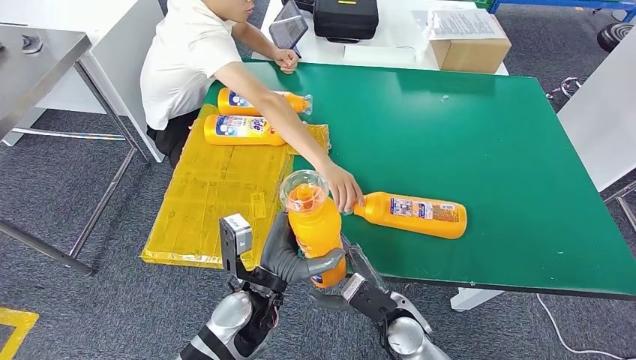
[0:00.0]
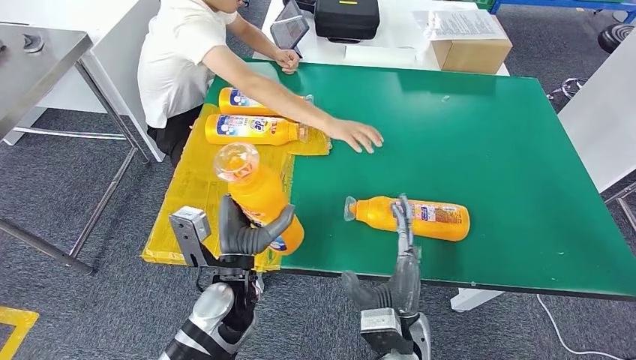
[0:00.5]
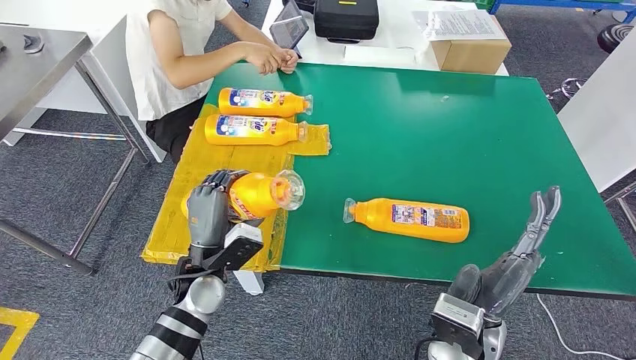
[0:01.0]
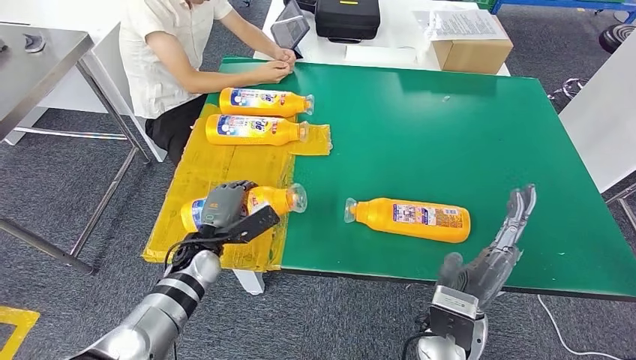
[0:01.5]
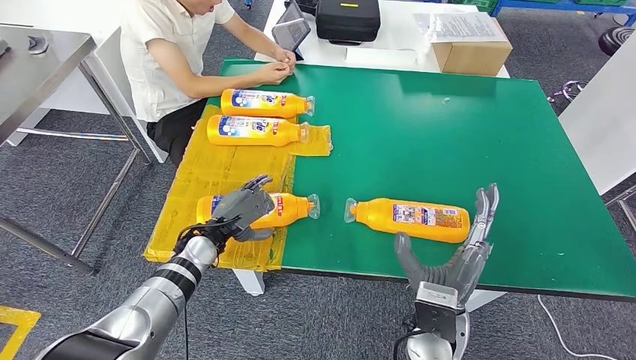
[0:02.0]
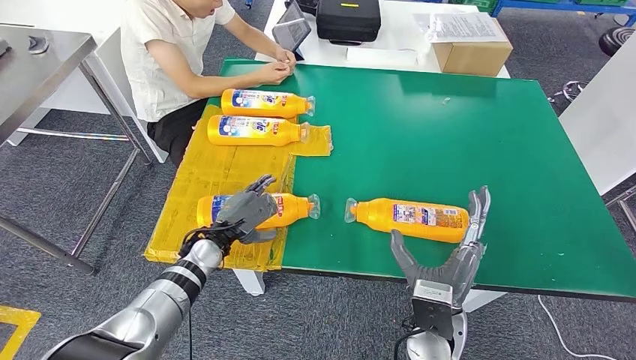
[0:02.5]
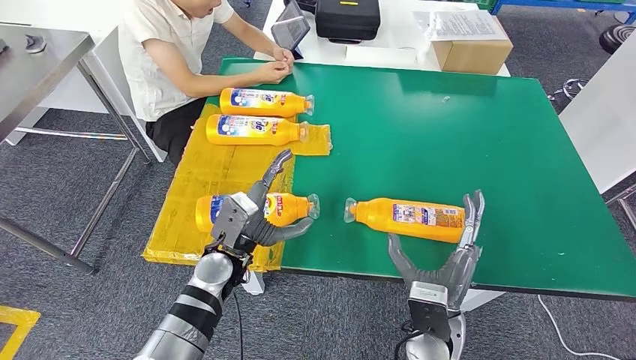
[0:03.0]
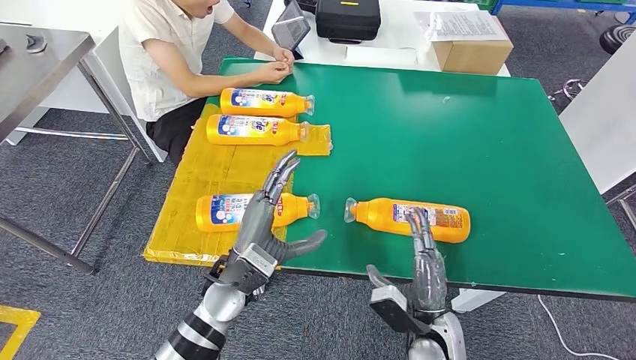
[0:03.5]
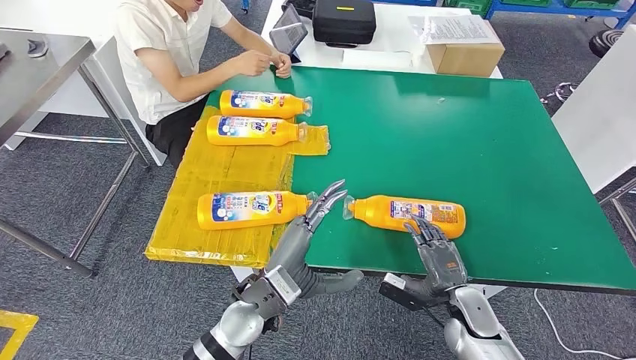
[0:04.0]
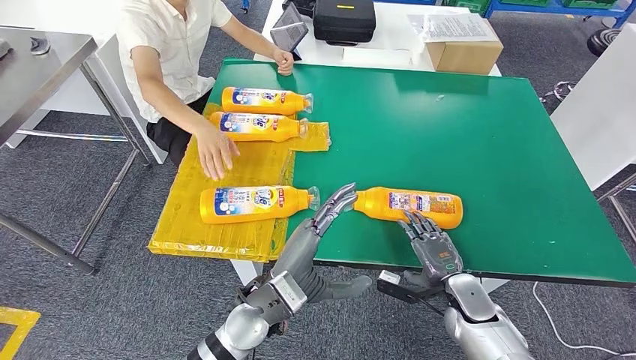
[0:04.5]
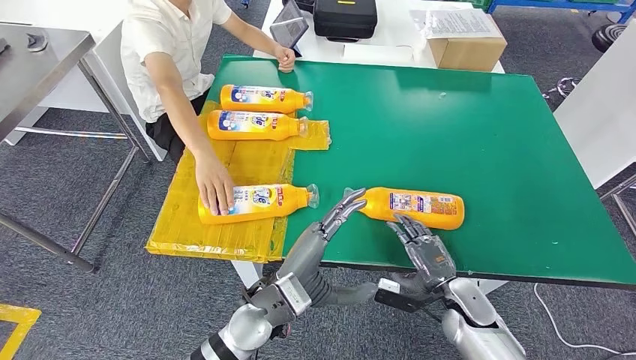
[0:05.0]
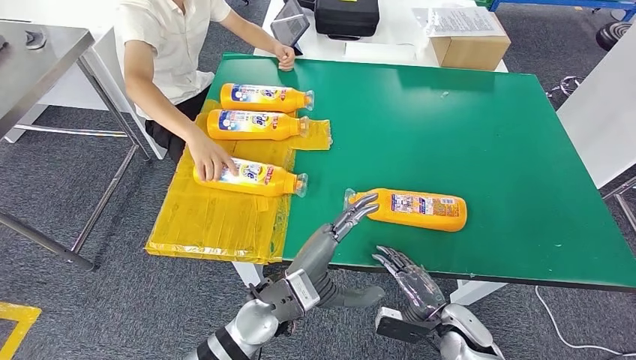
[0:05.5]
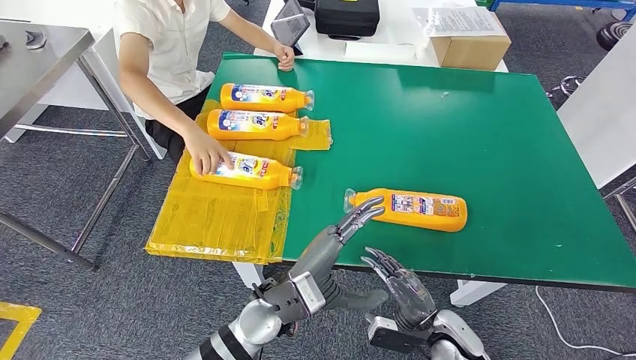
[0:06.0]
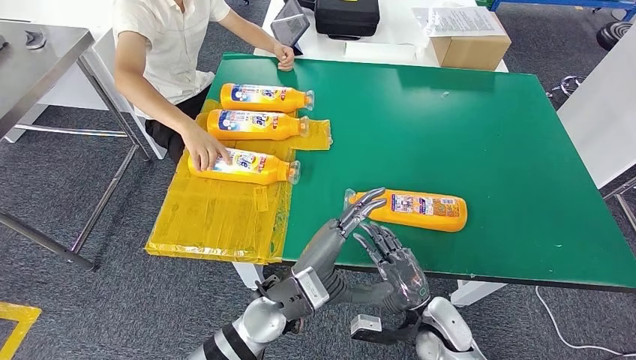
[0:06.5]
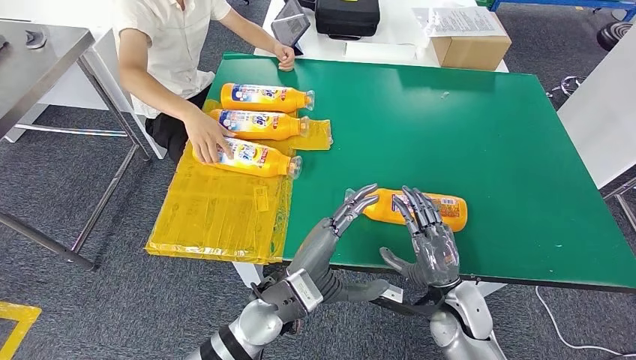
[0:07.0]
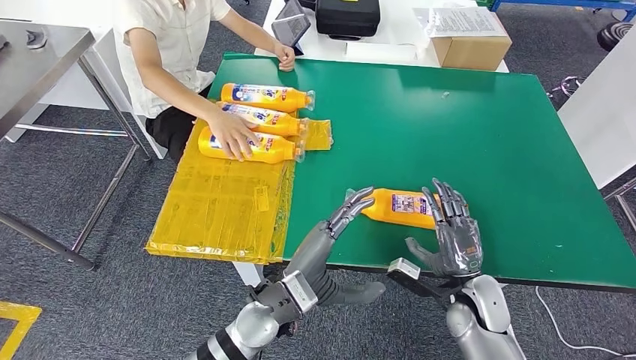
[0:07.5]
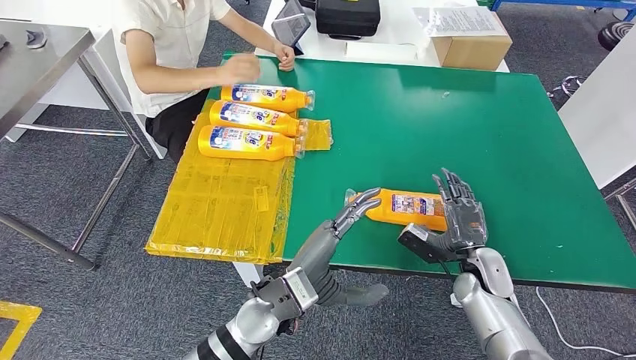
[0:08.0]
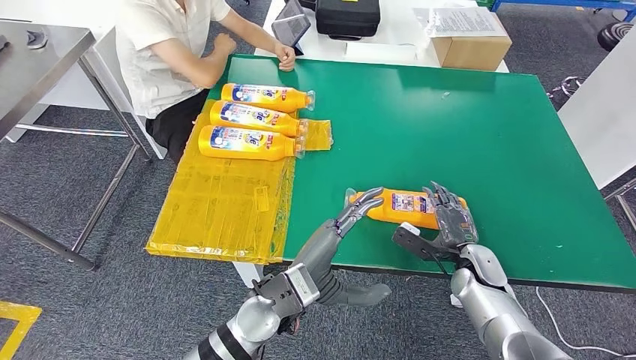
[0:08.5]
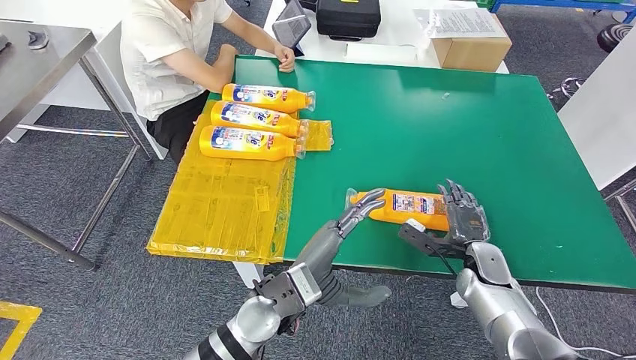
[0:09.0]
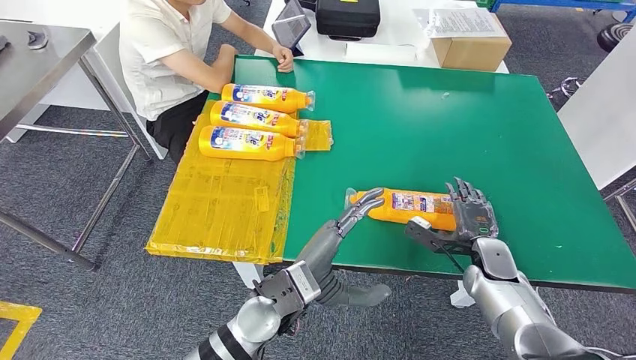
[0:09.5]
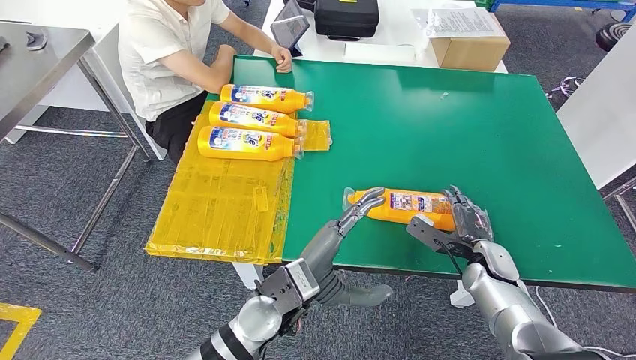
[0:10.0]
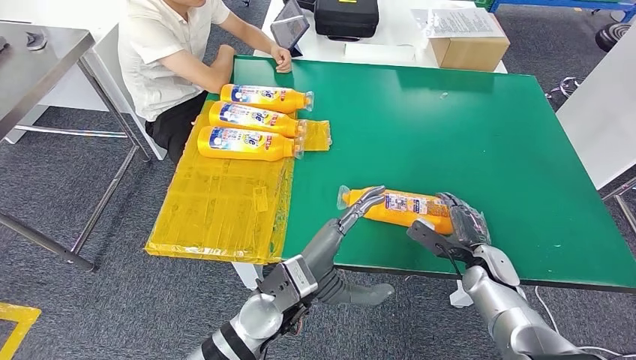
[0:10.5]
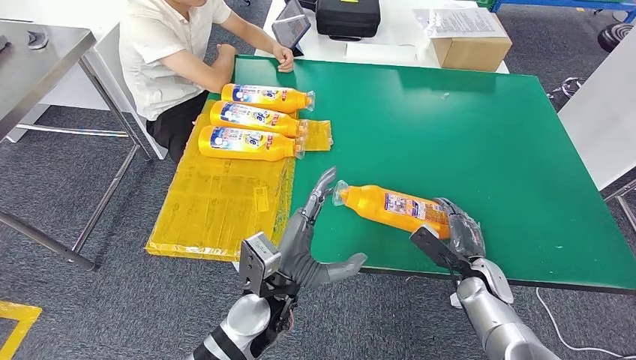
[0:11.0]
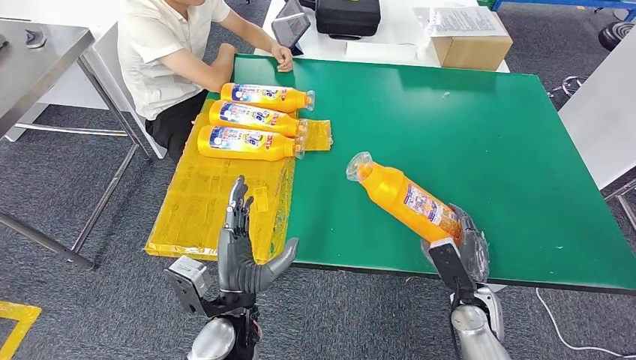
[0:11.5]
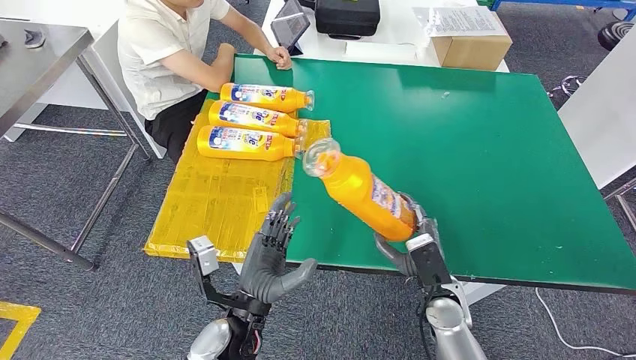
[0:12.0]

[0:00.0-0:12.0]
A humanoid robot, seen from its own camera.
Step, 0:00.0 to 0:01.5: Flip the fast-moving consumer goods bottle to the front side.
0:06.0 to 0:08.0: The right hand moves forward, to the right and upward, roughly 15 cm.
0:10.0 to 0:12.0: The right hand is displaced to the left and backward by about 15 cm. Meanwhile the left hand is displaced to the left by approximately 5 cm.

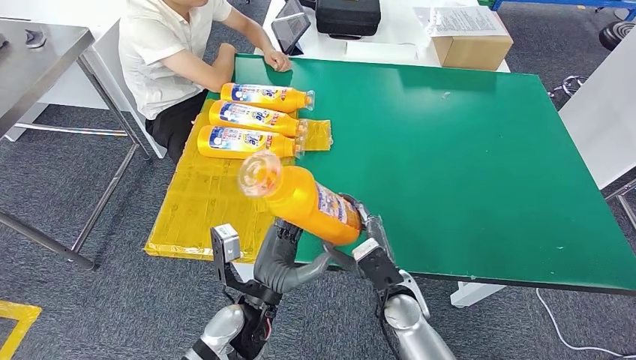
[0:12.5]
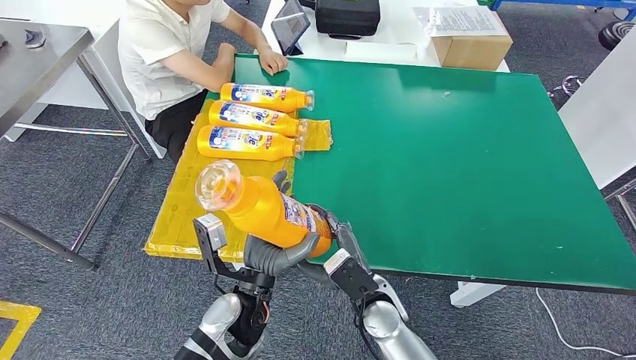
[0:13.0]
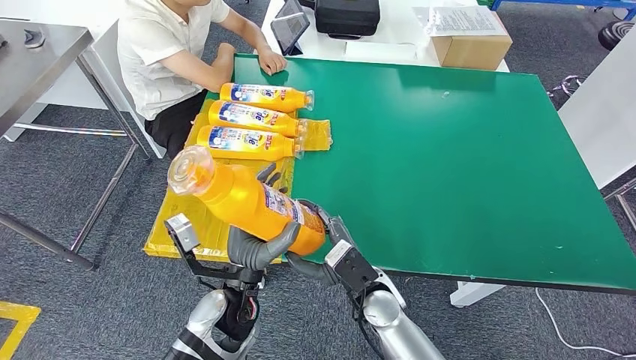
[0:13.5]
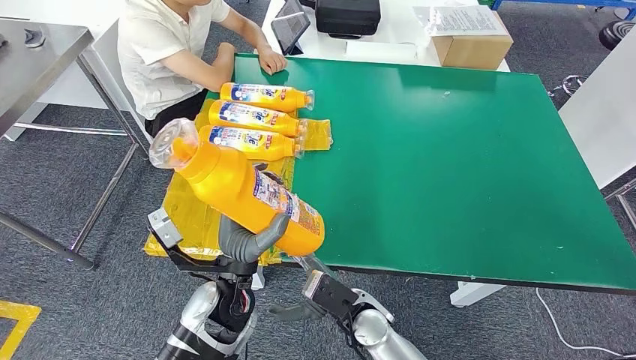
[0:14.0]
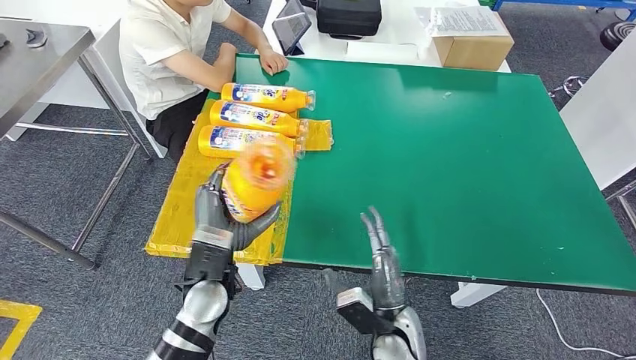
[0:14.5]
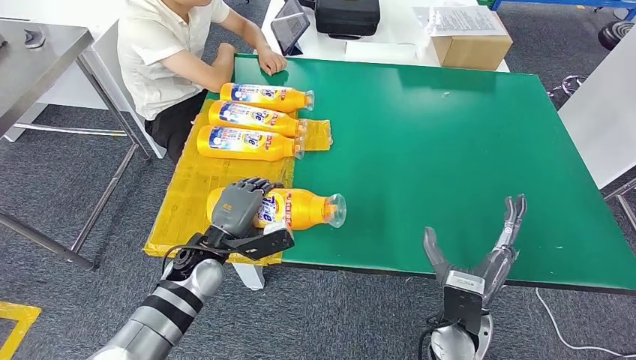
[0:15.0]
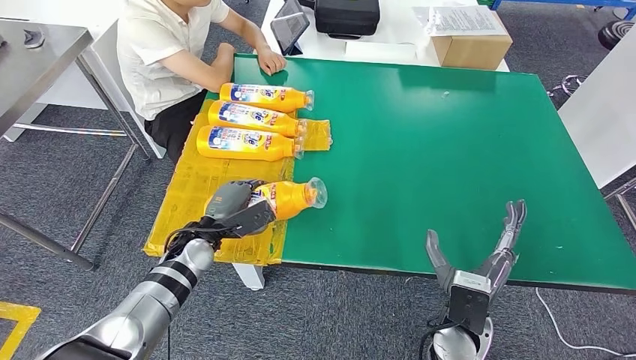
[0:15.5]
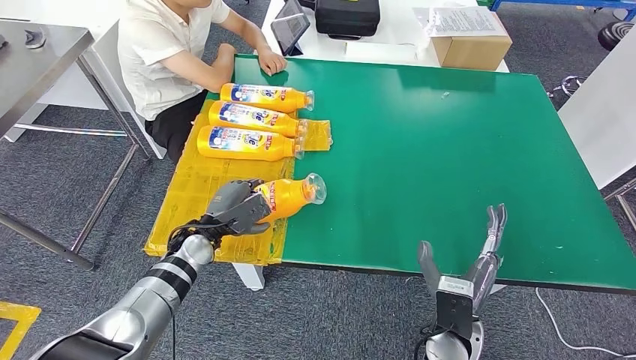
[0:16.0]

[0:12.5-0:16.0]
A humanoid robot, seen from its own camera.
Step, 0:13.5 to 0:16.0: Flip the fast-moving consumer goods bottle to the front side.
0:12.5 to 0:14.5: The left hand heads to the left, covering about 5 cm, while the right hand heads backward, covering some 5 cm.
0:14.5 to 0:16.0: The right hand shifts some 5 cm to the right; the left hand travels forward, to the left and downward by about 15 cm.

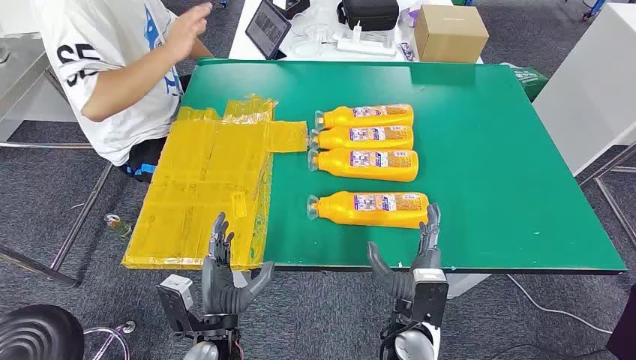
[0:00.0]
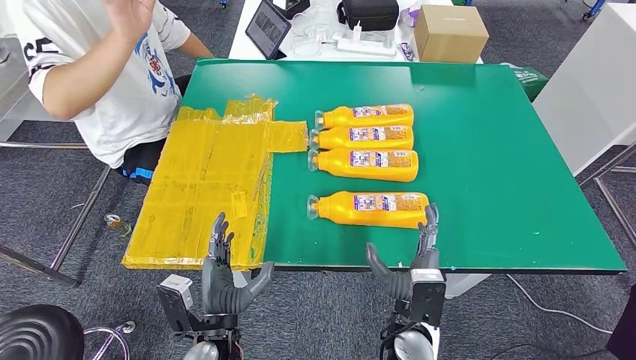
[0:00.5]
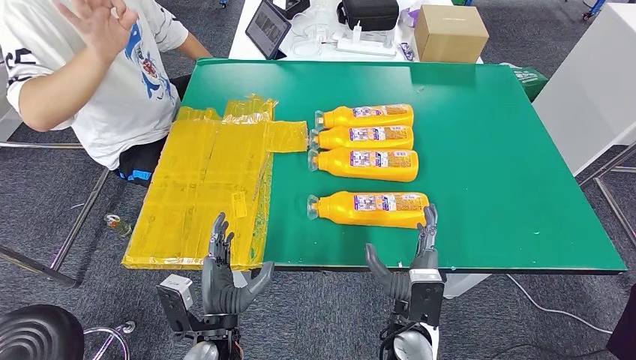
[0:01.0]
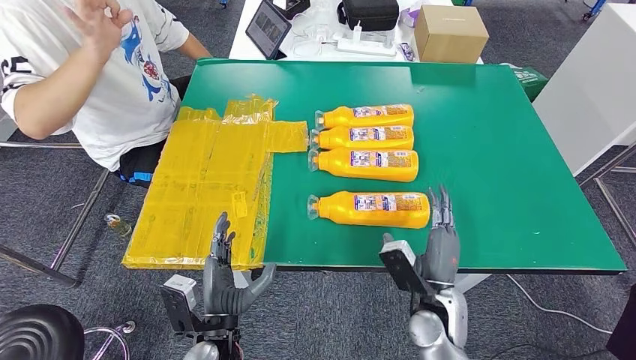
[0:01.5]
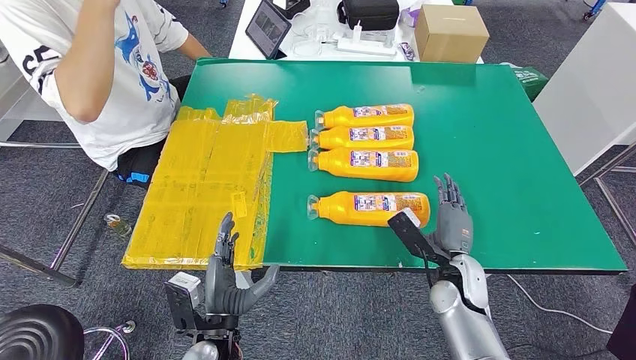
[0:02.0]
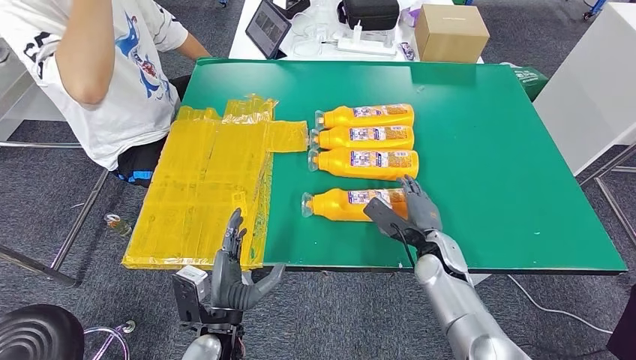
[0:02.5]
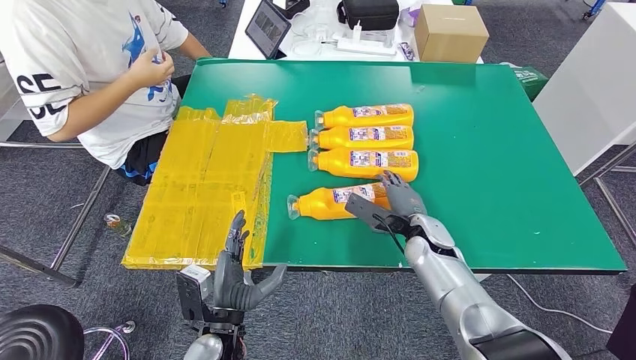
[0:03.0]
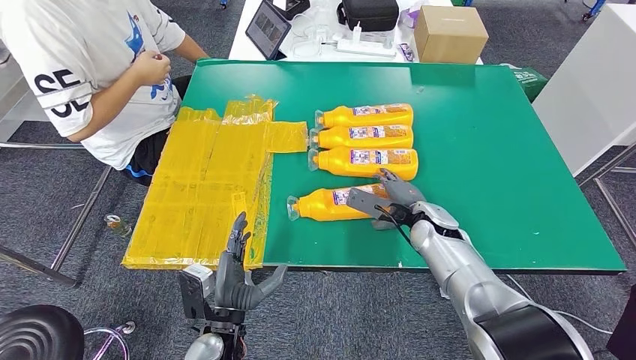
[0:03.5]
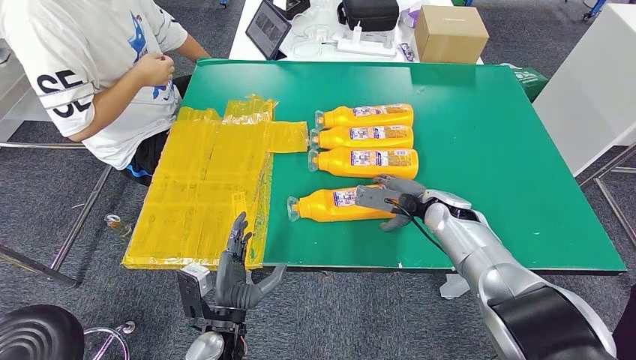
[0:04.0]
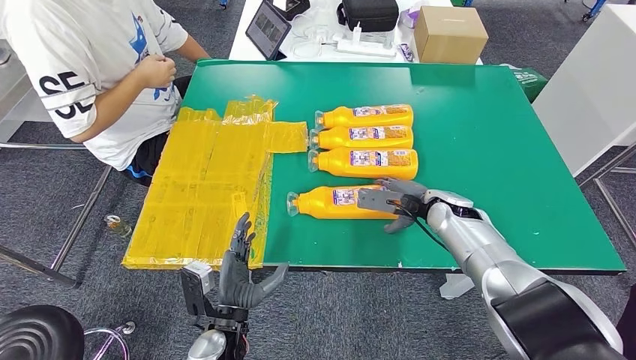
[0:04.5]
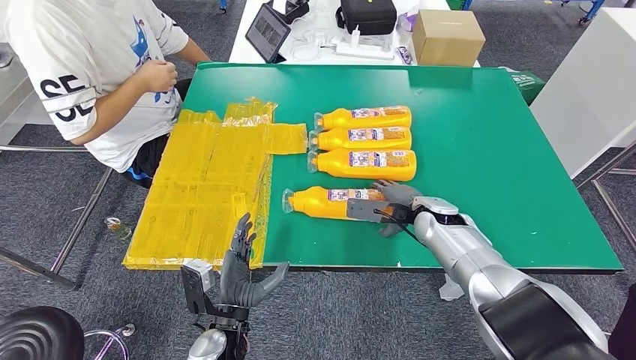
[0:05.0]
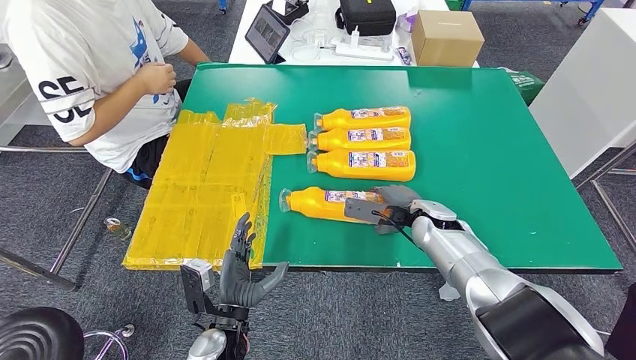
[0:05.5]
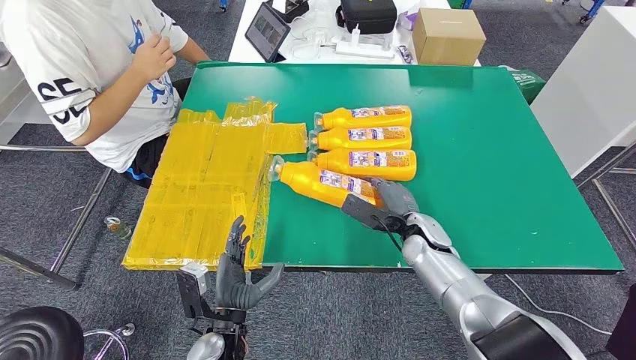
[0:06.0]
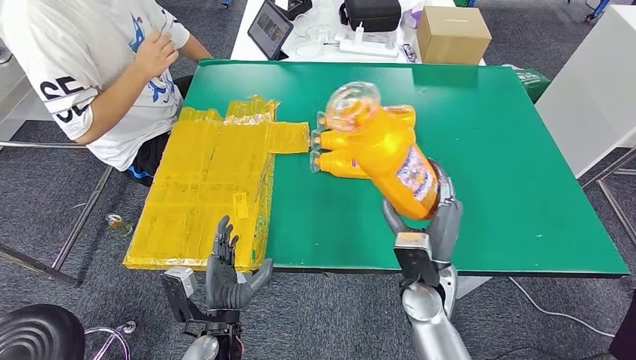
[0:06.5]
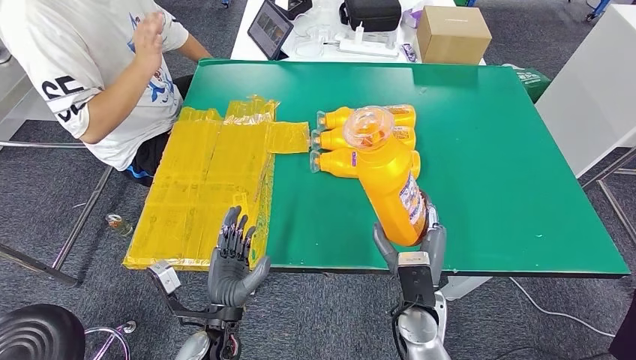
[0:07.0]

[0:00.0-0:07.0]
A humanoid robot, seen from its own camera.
0:02.0 to 0:03.5: The right hand is displaced forward by roughly 10 cm.
0:03.5 to 0:05.0: There are only small adjustments of the hands.
